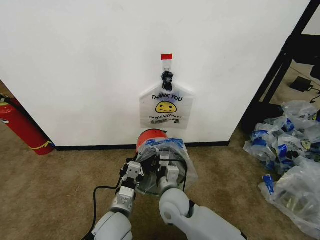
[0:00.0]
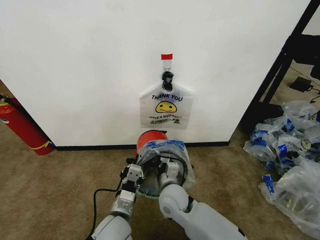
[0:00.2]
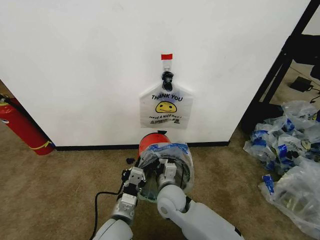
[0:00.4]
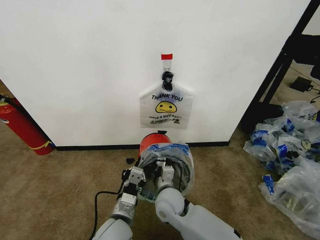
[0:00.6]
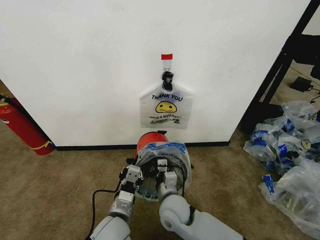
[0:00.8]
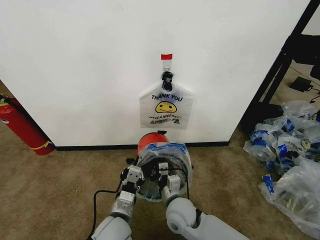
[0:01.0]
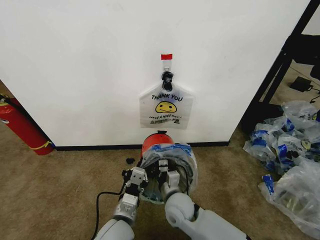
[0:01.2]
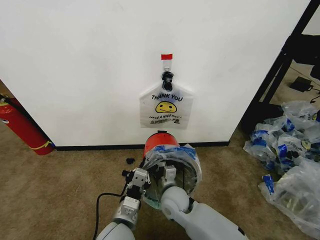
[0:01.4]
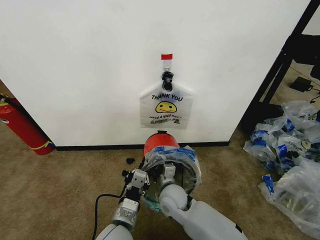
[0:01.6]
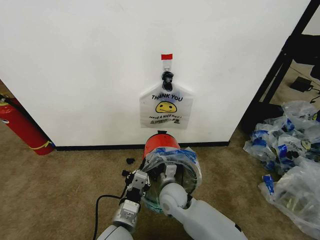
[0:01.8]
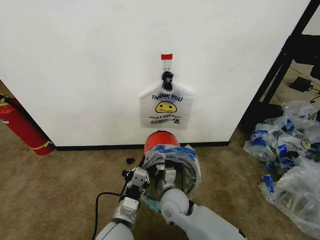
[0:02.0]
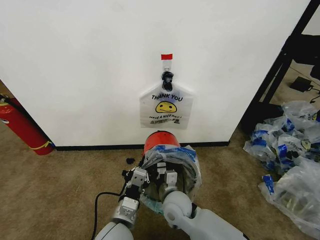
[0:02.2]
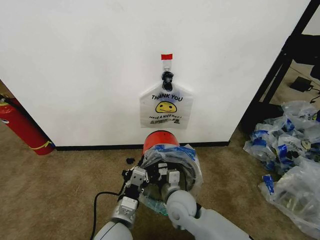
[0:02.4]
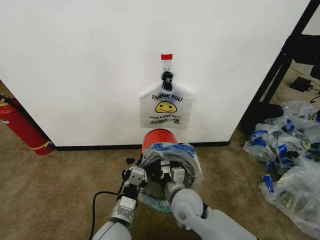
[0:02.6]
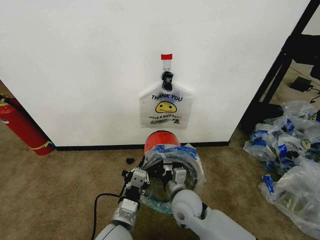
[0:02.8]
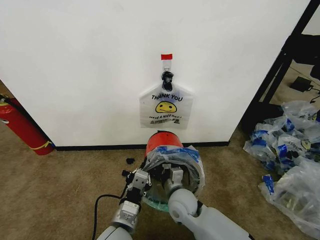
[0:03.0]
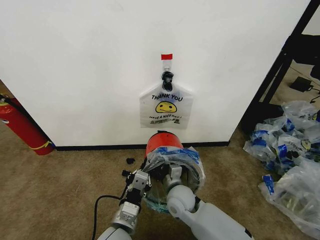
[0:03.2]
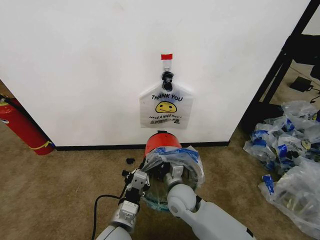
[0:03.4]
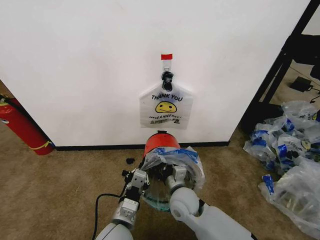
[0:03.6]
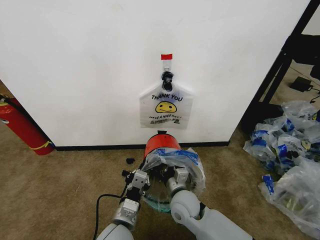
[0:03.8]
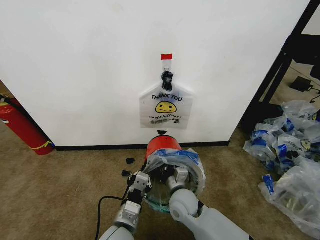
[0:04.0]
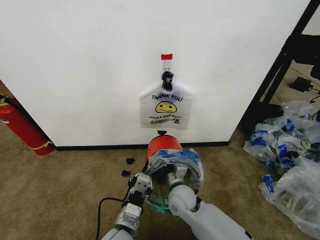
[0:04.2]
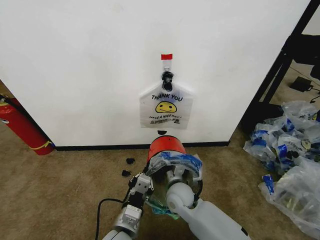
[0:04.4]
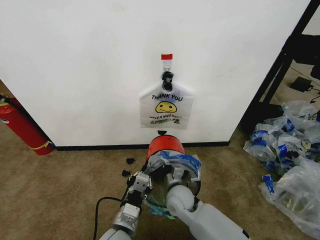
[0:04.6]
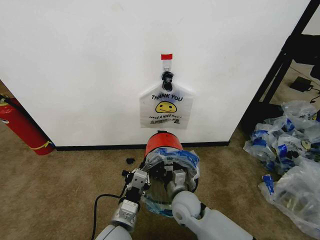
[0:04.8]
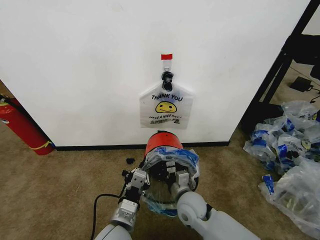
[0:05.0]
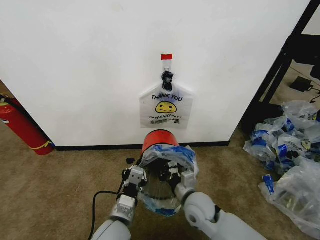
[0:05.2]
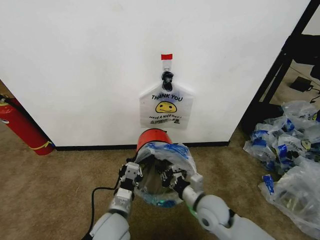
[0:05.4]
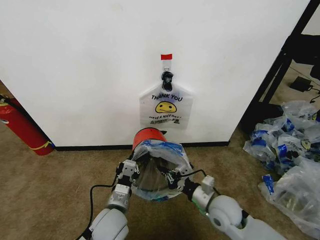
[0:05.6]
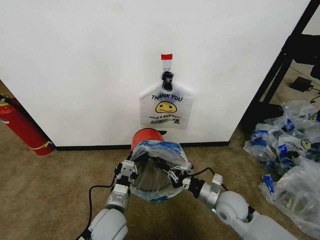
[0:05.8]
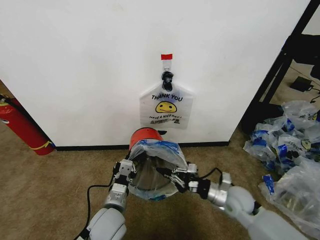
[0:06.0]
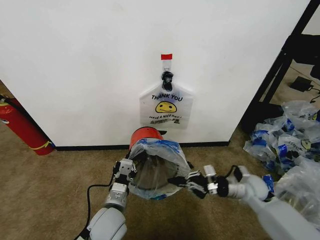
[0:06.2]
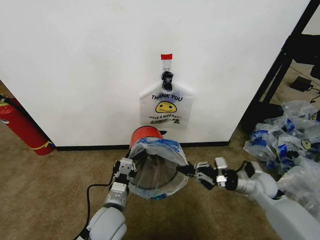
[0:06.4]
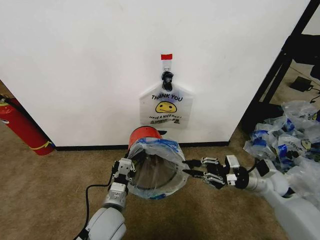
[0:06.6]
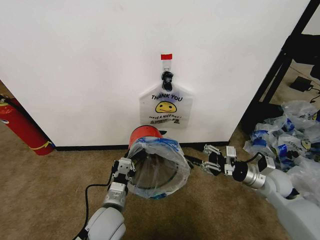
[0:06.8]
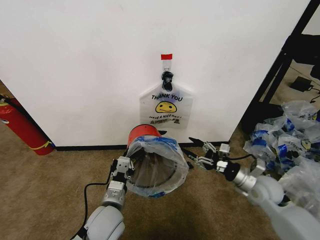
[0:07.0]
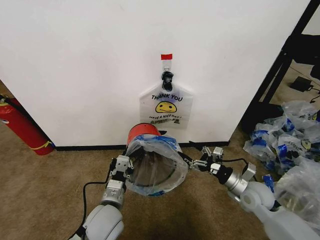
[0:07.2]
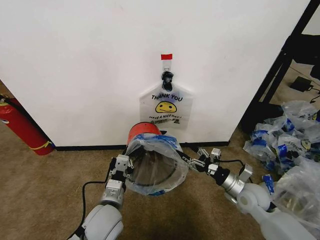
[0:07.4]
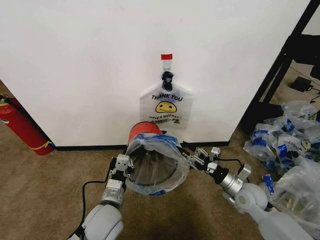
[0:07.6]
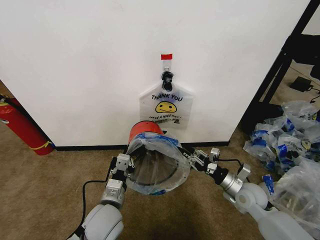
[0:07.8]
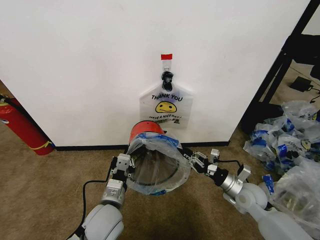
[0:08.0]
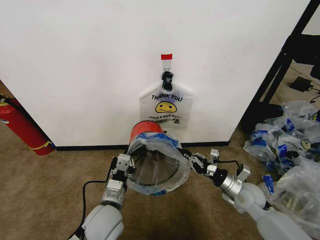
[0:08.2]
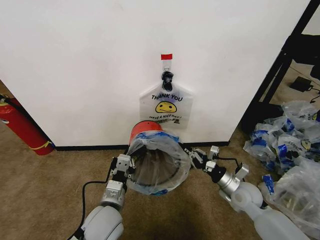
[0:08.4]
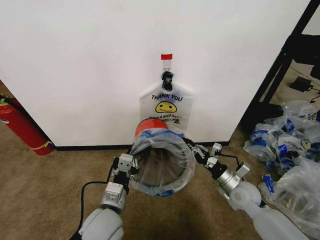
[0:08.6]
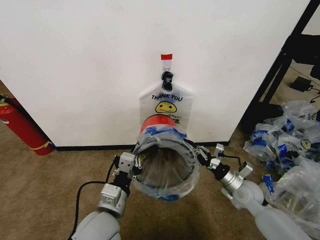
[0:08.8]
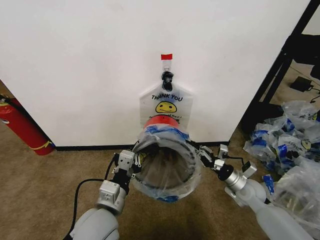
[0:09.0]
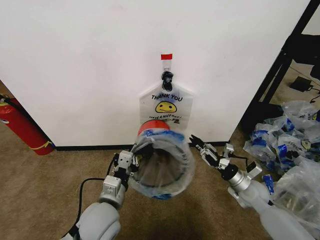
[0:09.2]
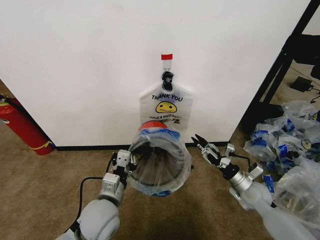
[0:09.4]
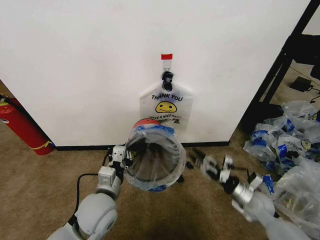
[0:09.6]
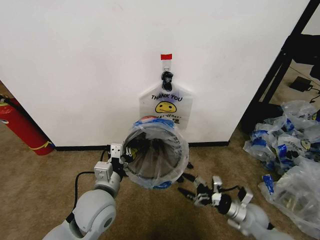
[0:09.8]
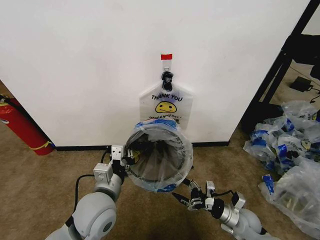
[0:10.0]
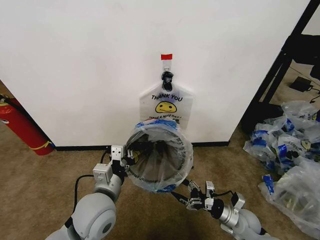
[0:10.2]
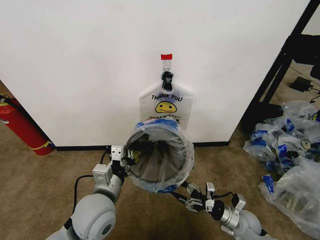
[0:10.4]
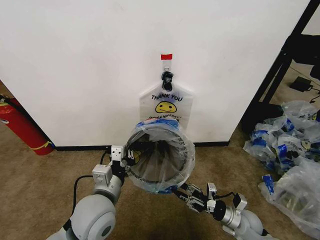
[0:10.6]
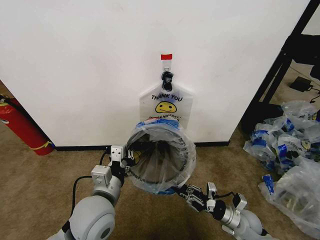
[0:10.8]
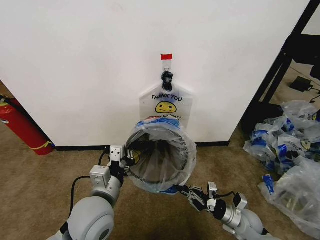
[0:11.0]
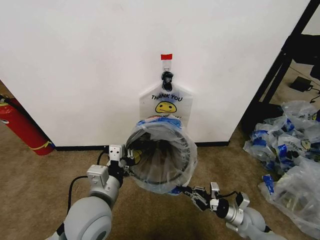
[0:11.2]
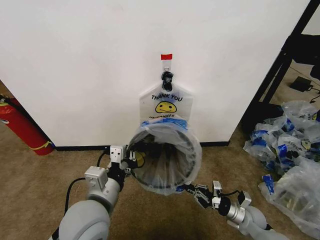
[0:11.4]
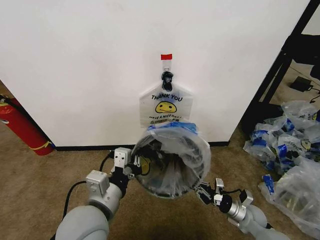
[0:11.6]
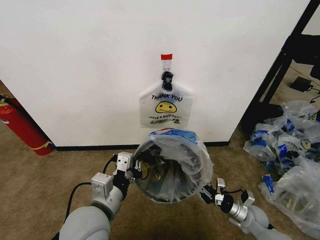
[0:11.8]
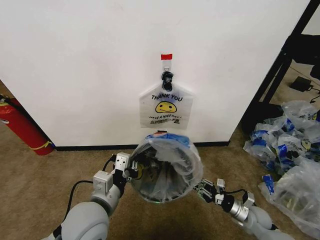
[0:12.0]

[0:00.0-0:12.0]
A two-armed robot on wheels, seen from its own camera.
Task of the whole recording: Pick up the garbage bag from the wall and place it over the trash bin.
0:00.0 to 0:01.6: The grippers move only a little.
0:03.0 to 0:04.4: The grippers stay close to where they were, moving slightly.
0:04.4 to 0:06.0: The right gripper heads to the right, covering roughly 20 cm. Meanwhile the left gripper moves forward, roughly 5 cm.
0:06.0 to 0:07.6: The right gripper opens.
0:07.6 to 0:09.0: The left gripper shifts approximately 5 cm upward. The right gripper closes its fingers.
0:09.0 to 0:10.4: The right gripper travels backward and downward by some 10 cm, and opens.
0:10.4 to 0:12.0: The right gripper is displaced to the right by approximately 5 cm, and closes up.

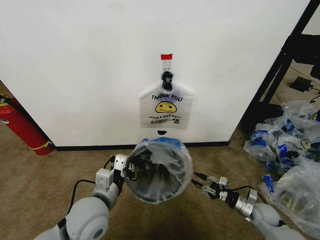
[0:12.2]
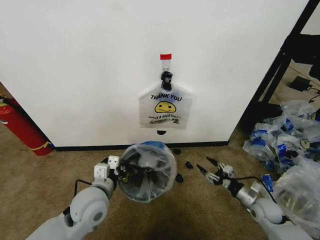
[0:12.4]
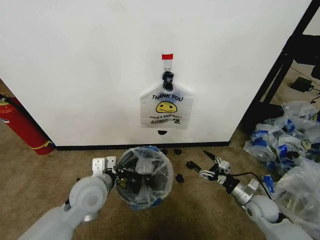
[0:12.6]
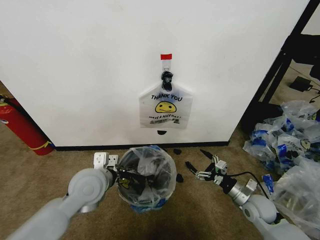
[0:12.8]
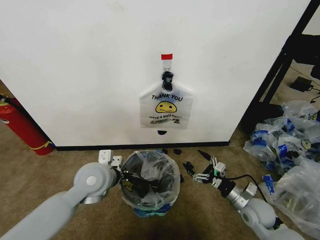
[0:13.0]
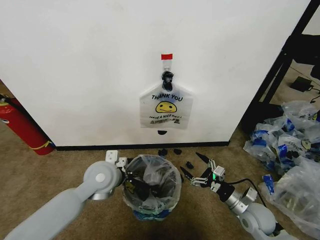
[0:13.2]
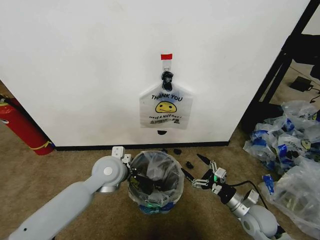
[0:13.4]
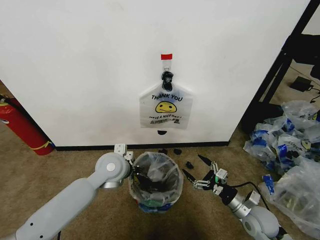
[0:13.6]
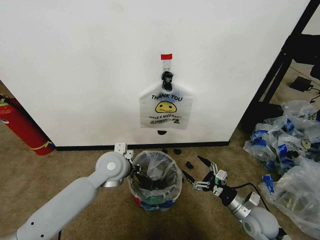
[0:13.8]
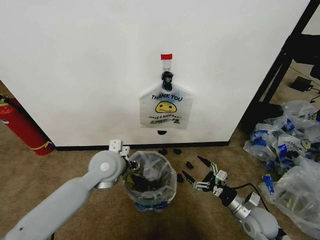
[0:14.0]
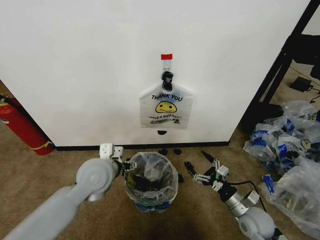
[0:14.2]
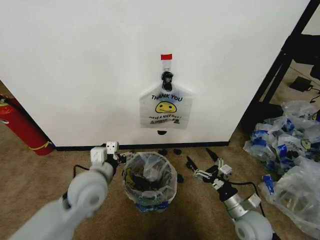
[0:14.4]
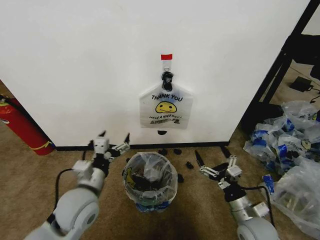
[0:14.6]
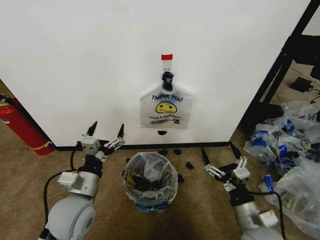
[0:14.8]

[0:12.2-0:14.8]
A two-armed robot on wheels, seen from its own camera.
Task of the whole recording: Pick up the garbage bag from the wall and place it over the trash bin.
0:12.2 to 0:13.4: The right gripper is displaced upward and to the left by about 15 cm, and opens its fingers; the left gripper travels forward by about 10 cm.
0:13.4 to 0:14.8: The left gripper shifts roughly 15 cm backward and to the left, and opens its fingers, while the right gripper moves backward, upward and to the left, approximately 10 cm.

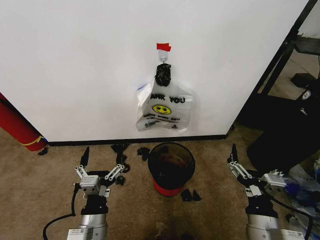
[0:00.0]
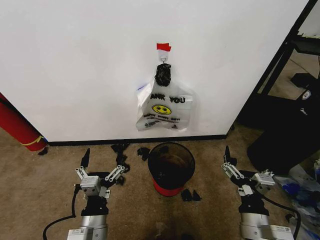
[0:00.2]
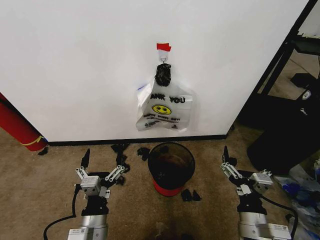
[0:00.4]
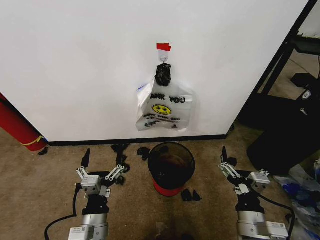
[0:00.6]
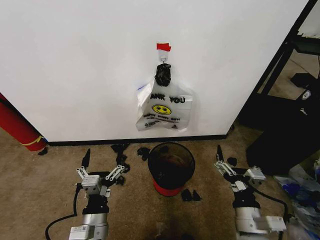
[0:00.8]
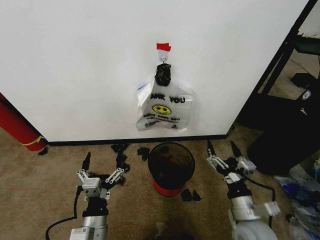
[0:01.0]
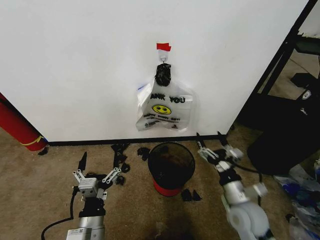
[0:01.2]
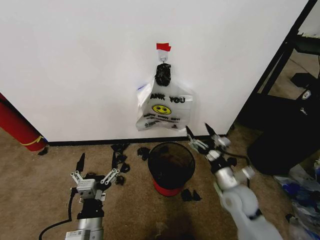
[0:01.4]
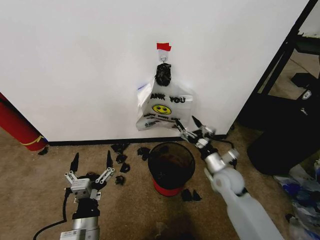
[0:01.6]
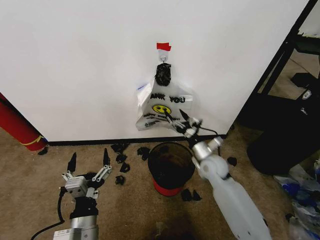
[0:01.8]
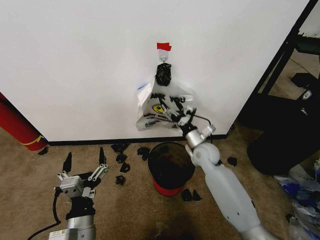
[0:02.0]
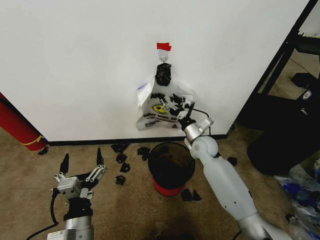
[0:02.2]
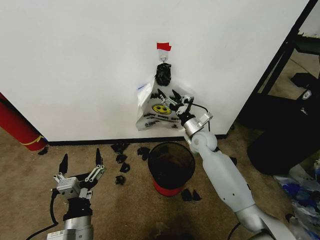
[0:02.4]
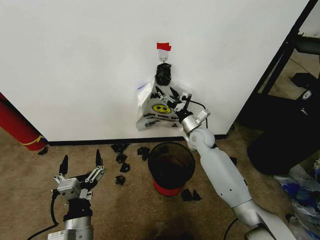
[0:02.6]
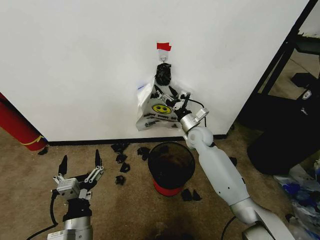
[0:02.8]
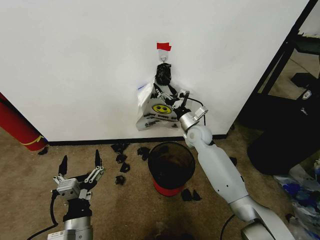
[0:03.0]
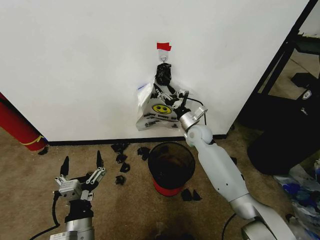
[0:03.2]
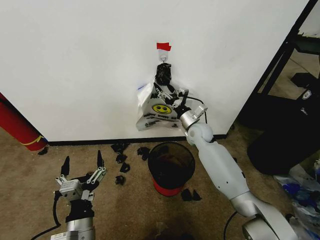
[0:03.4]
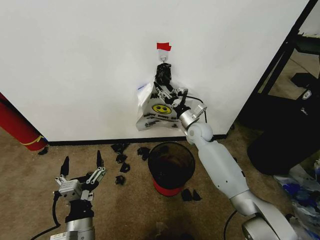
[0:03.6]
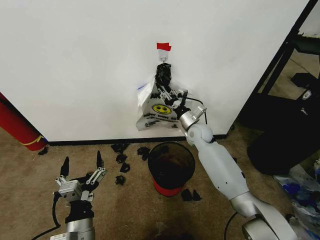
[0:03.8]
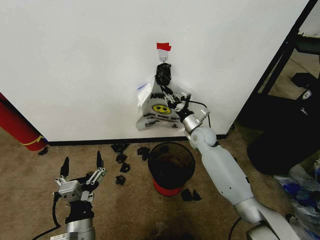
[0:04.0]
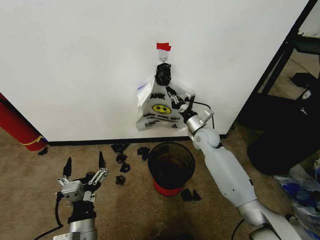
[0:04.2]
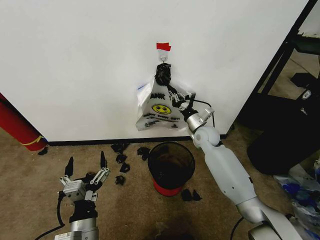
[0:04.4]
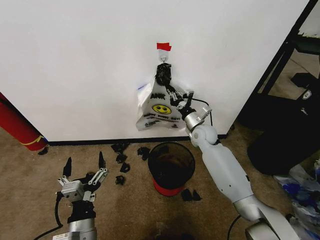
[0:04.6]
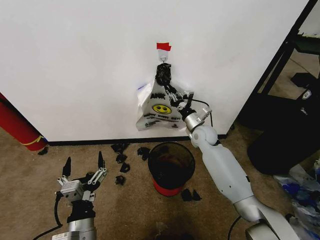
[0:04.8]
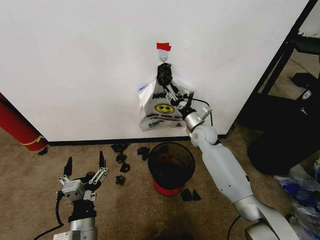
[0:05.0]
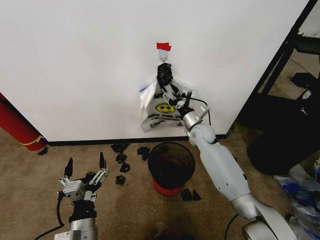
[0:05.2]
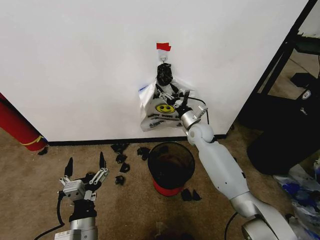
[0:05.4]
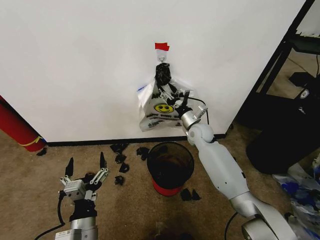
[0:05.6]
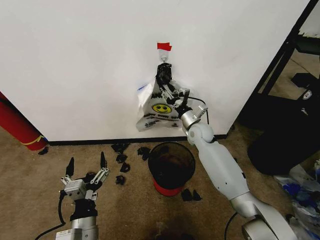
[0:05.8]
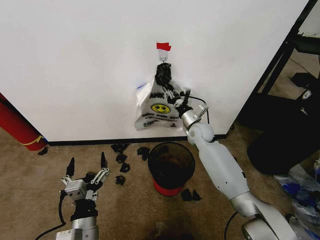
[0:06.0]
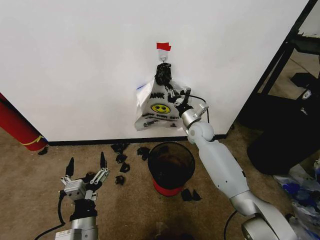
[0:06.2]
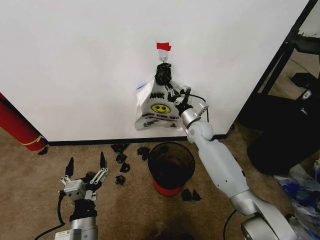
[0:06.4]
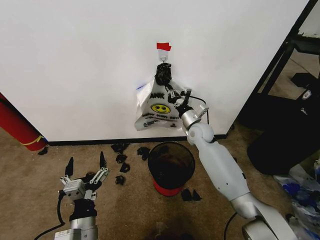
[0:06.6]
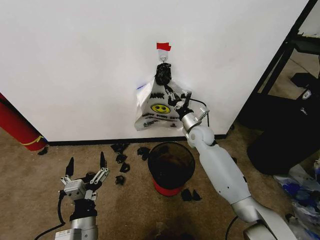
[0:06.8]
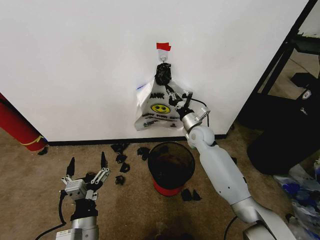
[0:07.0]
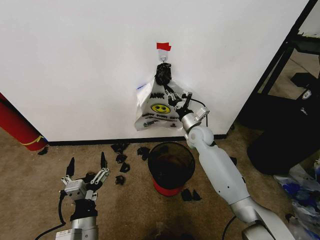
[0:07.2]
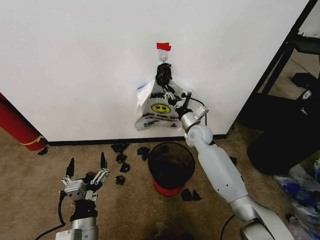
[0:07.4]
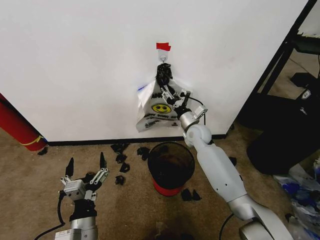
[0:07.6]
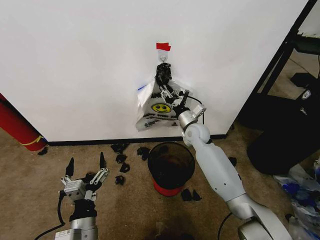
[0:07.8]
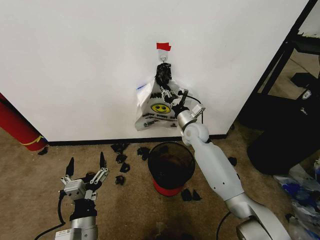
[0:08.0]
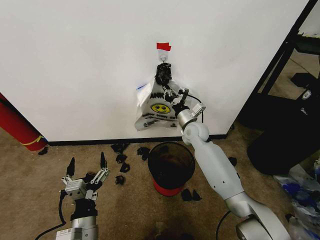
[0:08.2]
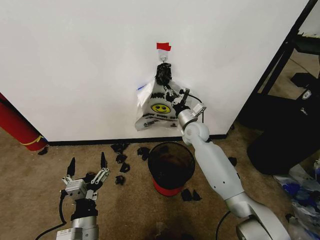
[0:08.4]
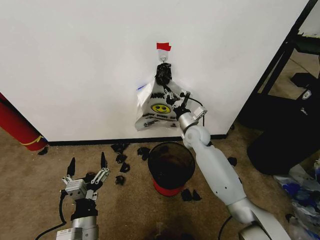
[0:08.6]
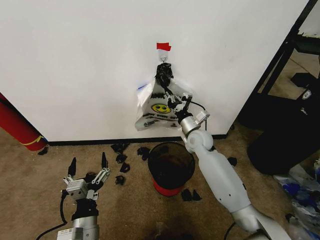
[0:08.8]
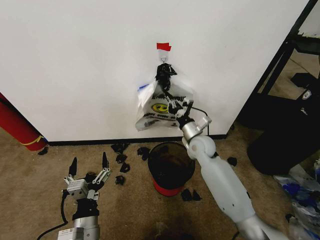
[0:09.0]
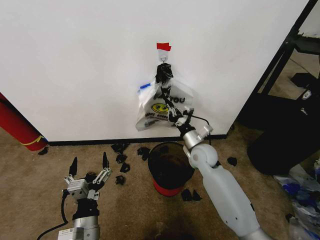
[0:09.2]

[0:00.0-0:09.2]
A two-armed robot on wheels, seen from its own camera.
Task of the whole recording: Pick up the garbage bag from the wall and place it over the trash bin.
0:01.6 to 0:03.0: The right gripper moves forward and to the left, about 20 cm.
0:03.0 to 0:04.6: The right gripper closes up.
0:04.6 to 0:06.2: The right gripper opens, then closes once more.
0:06.2 to 0:07.6: The right gripper opens.
0:07.6 to 0:09.2: The right gripper moves backward, roughly 10 cm, and closes.
